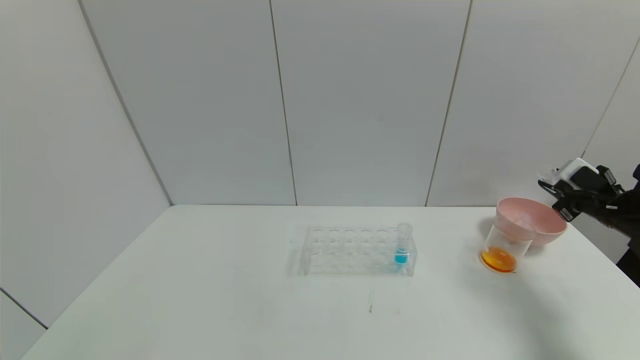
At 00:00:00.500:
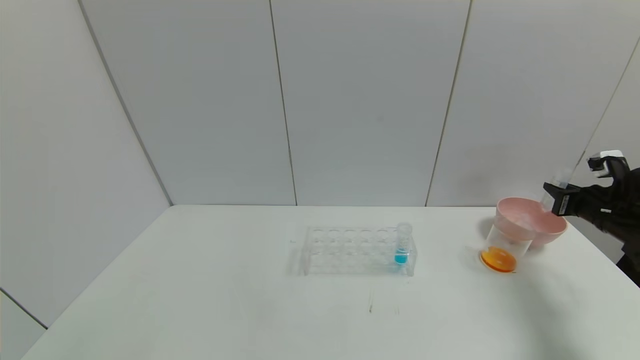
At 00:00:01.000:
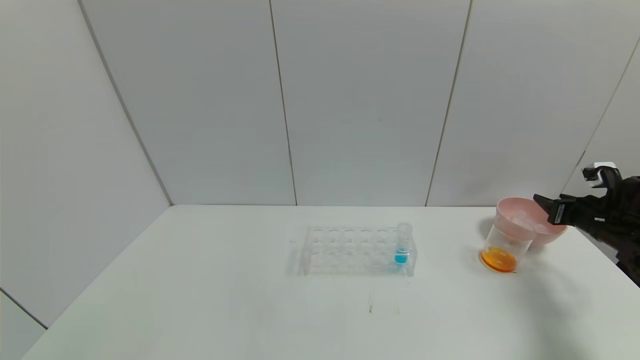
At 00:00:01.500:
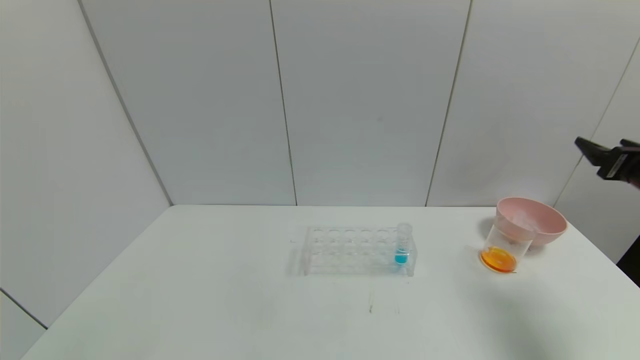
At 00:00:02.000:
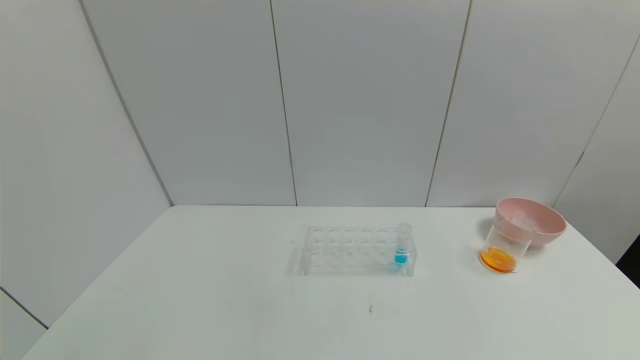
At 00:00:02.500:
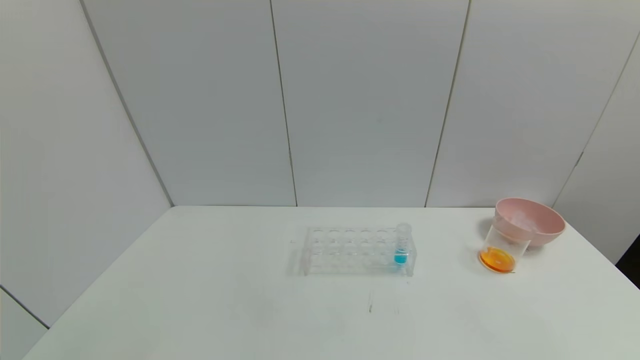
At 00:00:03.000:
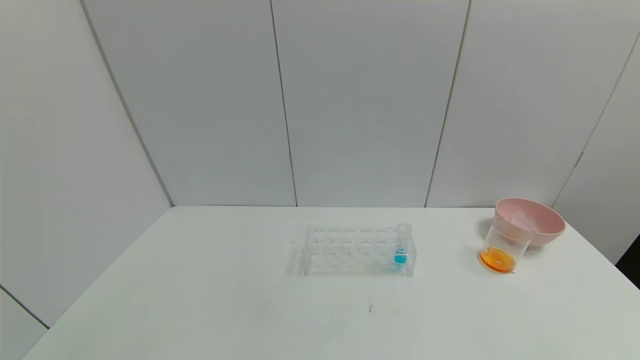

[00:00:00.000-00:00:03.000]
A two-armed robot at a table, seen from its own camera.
Task of the whole recording: pick up the test tube with yellow pigment and the test tube with red pigment by grippers and pour them into the beaker.
00:00:00.000 to 00:00:01.500: The right gripper travels upward and backward by about 10 cm, and opens.
00:00:01.500 to 00:00:03.000: The right gripper moves backward and downward, approximately 35 cm.
